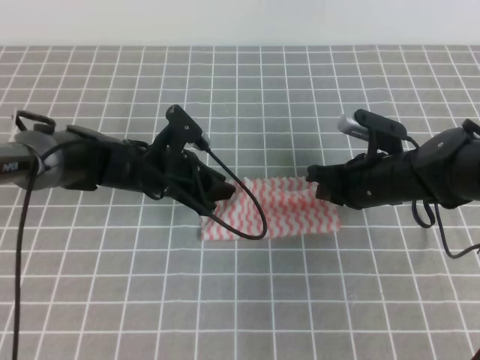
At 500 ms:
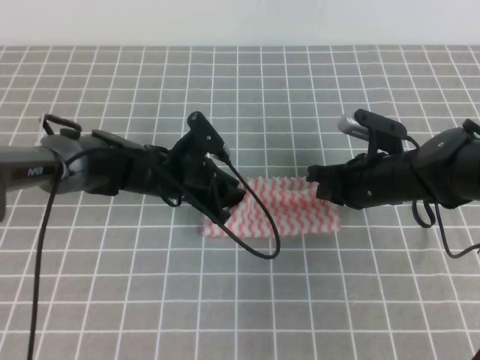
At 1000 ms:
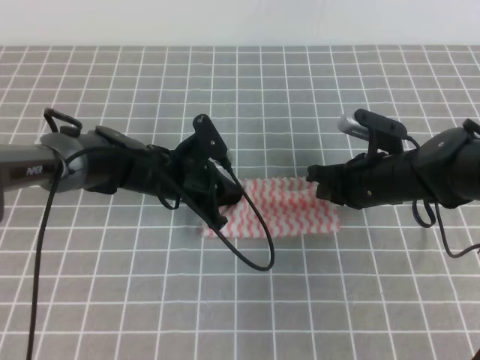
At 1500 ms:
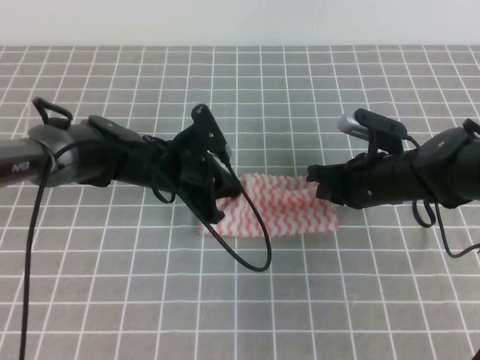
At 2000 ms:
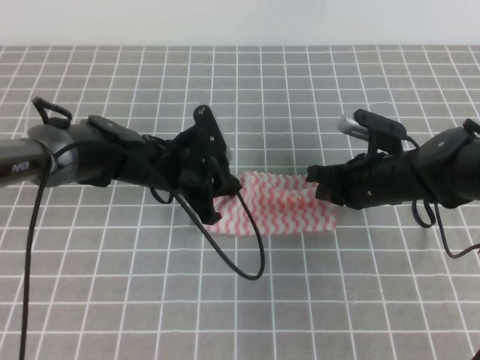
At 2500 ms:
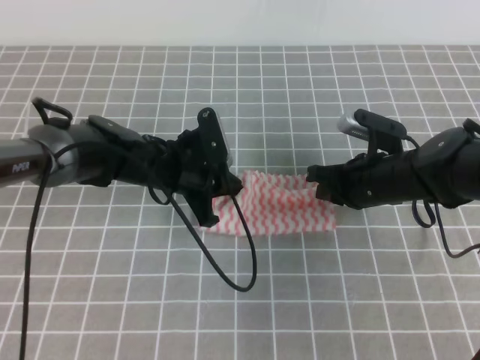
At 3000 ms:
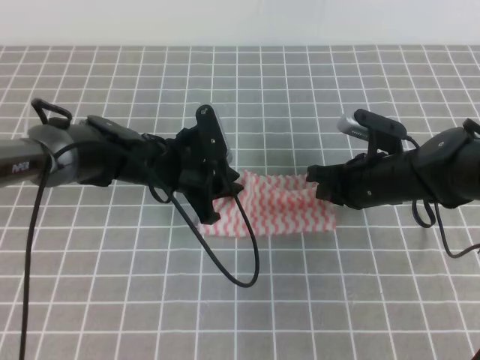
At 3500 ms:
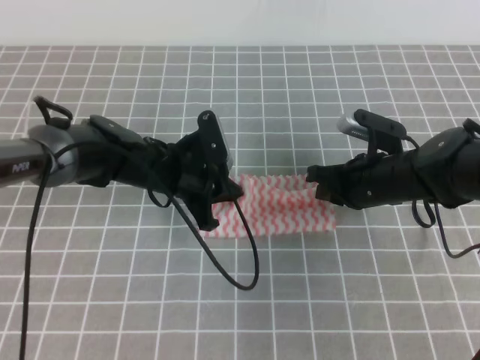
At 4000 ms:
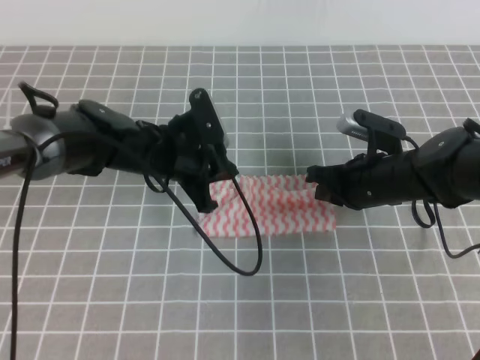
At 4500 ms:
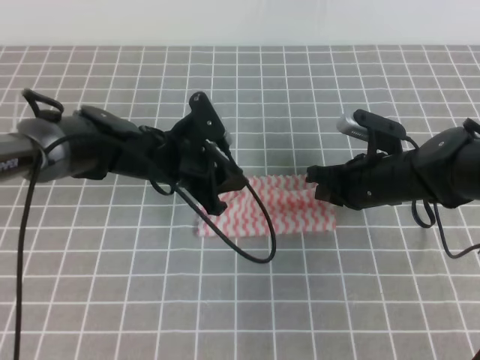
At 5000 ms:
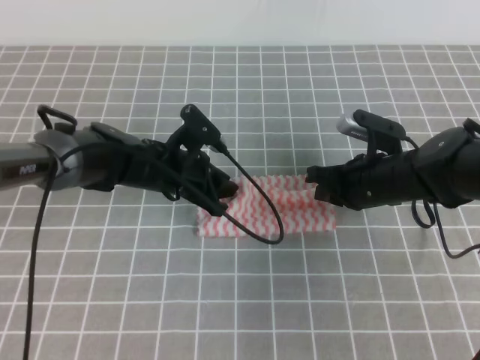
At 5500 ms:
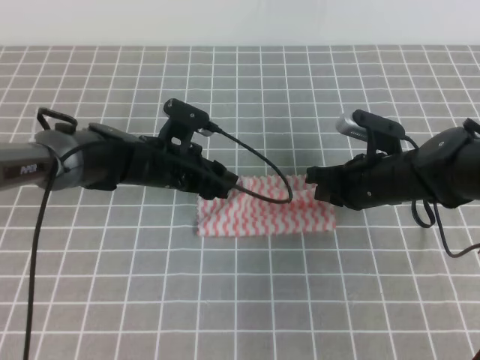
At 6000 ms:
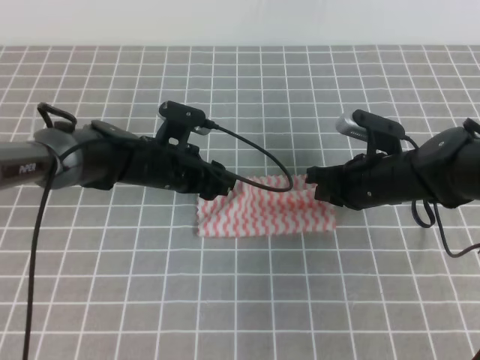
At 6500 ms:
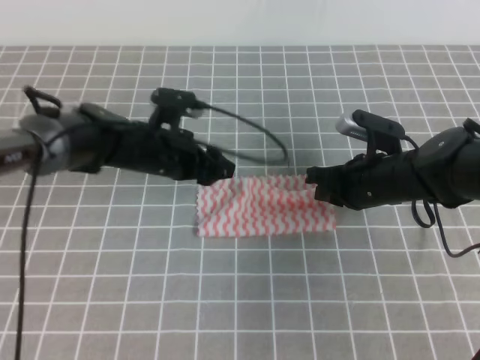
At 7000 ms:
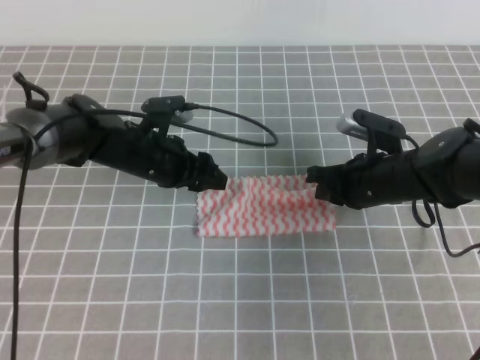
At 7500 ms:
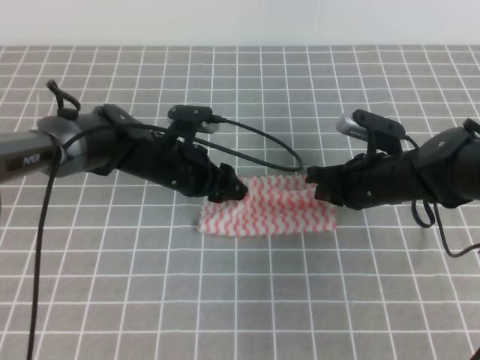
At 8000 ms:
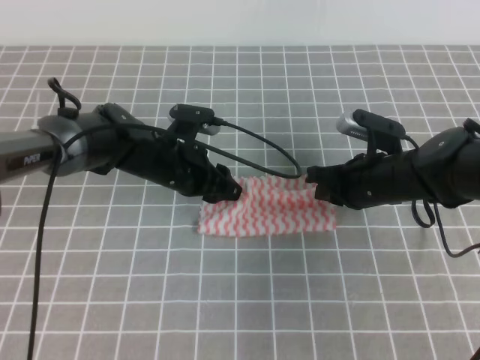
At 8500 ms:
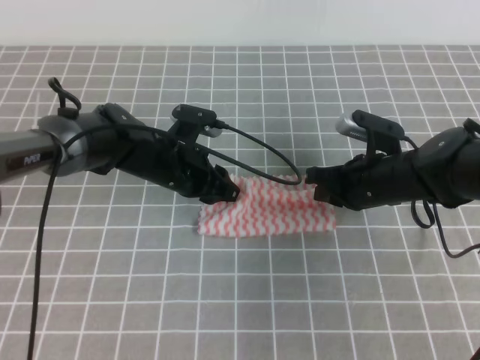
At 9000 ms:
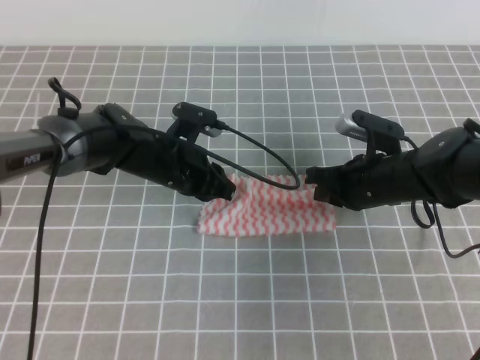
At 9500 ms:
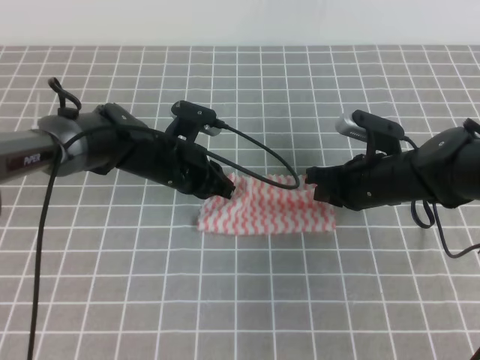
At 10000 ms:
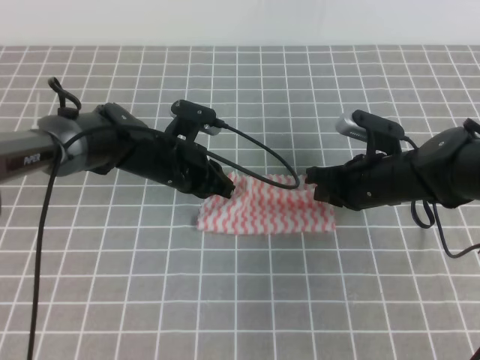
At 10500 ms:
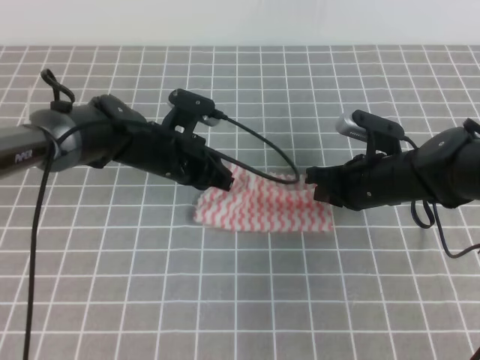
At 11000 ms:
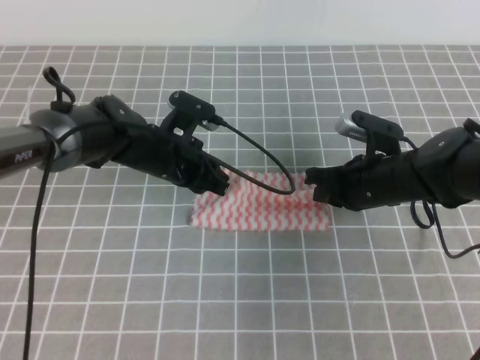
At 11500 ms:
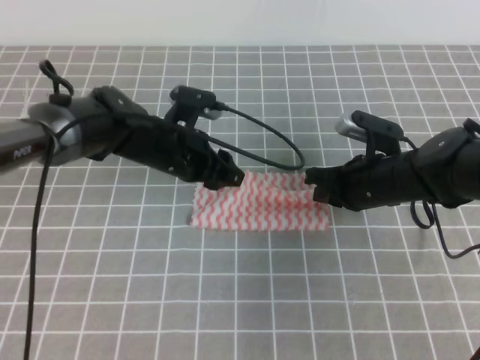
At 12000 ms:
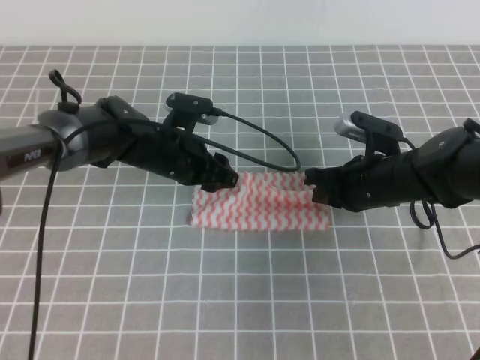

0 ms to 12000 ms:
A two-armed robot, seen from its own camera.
0 ms to 2000 ms: The left gripper closes.
2000 ms to 4000 ms: The grippers make only small movements.
4000 ms to 6000 ms: The left gripper opens.
6000 ms to 8000 ms: The grippers stay close to where they were, moving slightly.
8000 ms to 10000 ms: The left gripper closes up.
10000 ms to 12000 ms: The left gripper opens its fingers.

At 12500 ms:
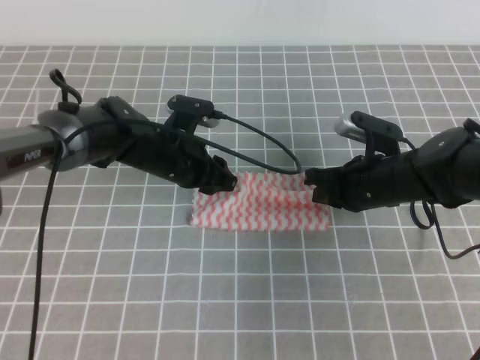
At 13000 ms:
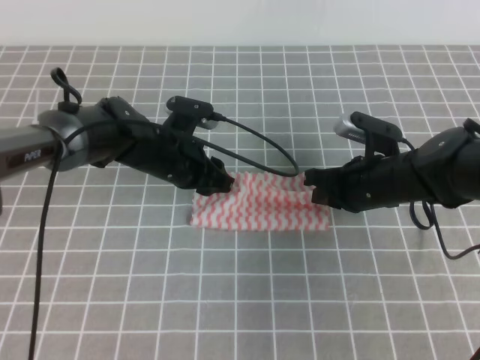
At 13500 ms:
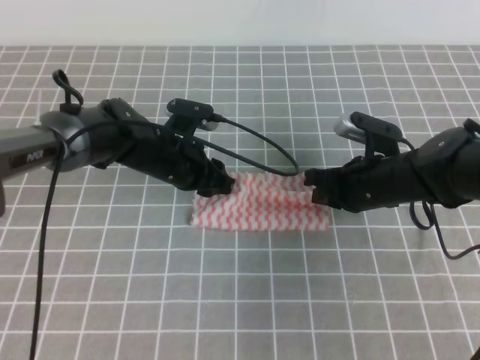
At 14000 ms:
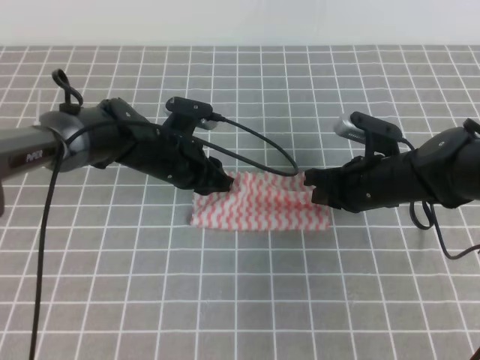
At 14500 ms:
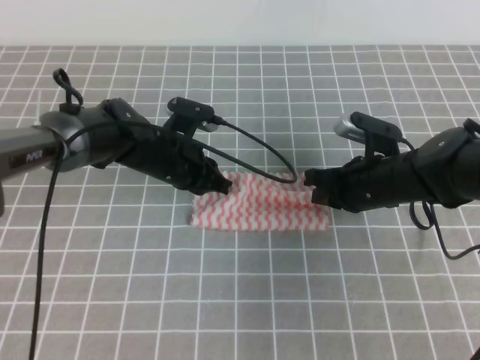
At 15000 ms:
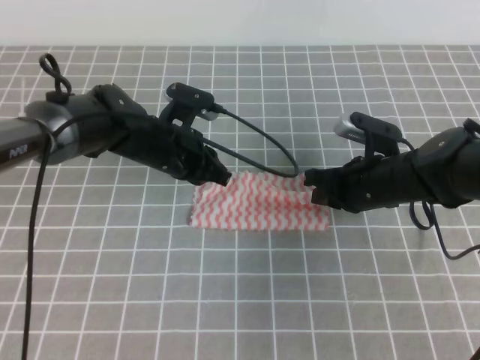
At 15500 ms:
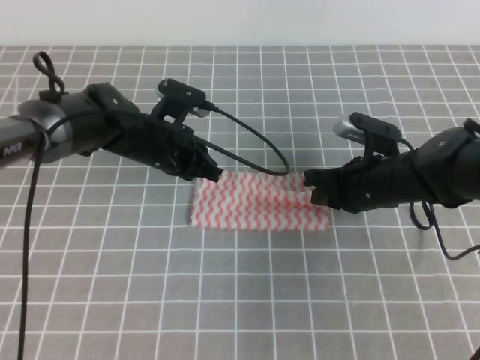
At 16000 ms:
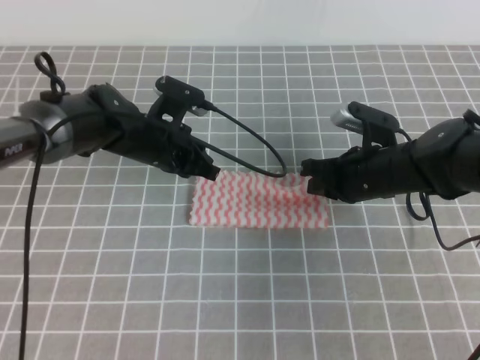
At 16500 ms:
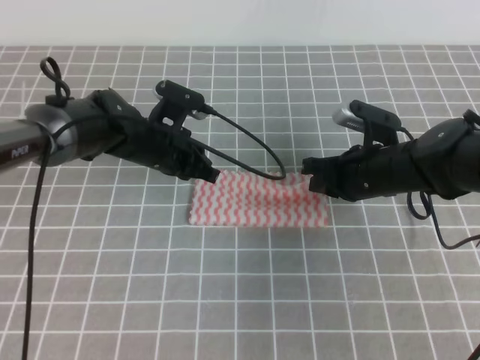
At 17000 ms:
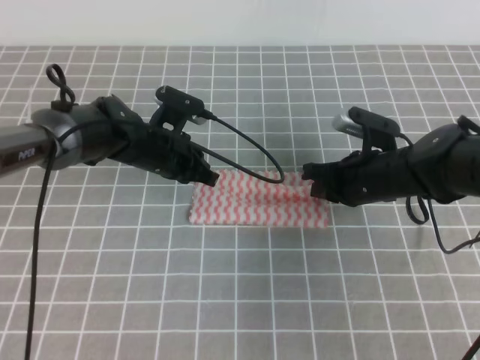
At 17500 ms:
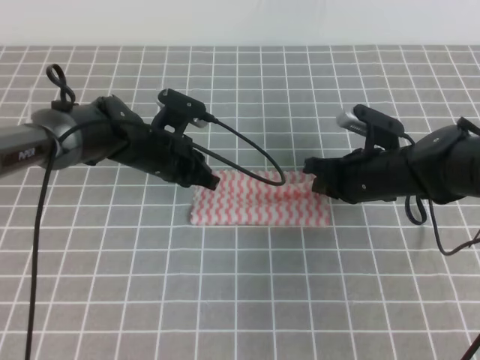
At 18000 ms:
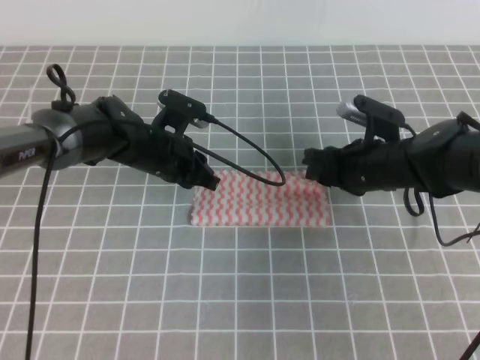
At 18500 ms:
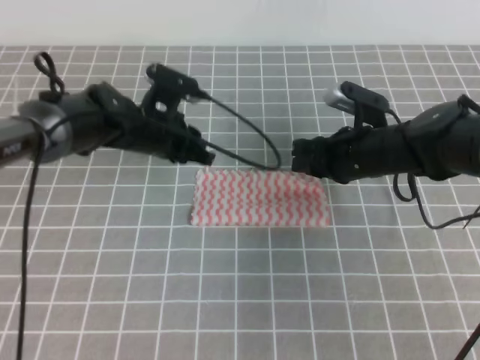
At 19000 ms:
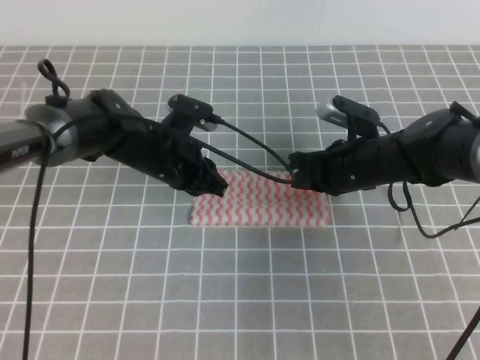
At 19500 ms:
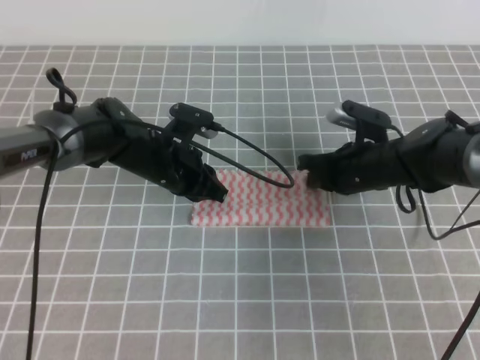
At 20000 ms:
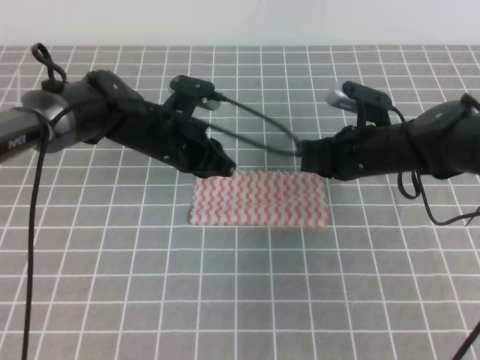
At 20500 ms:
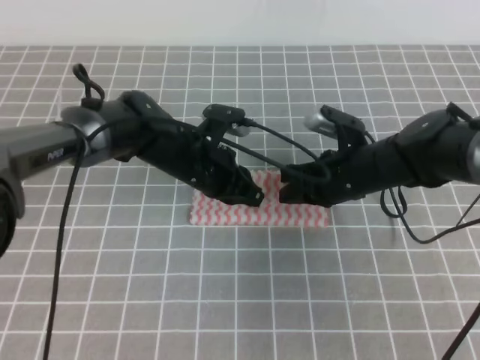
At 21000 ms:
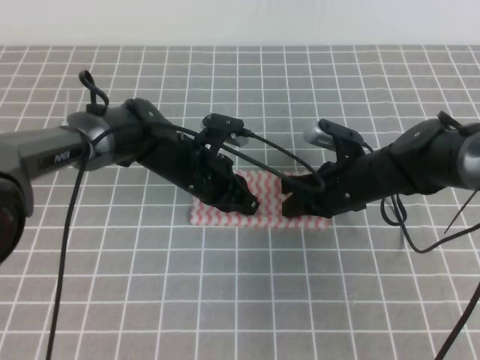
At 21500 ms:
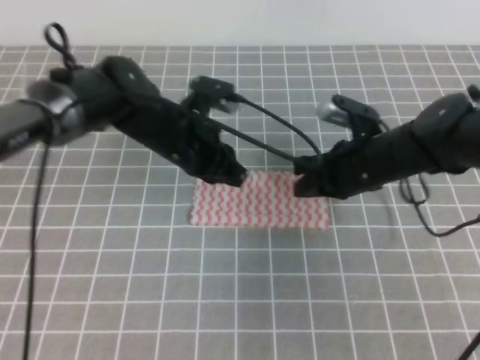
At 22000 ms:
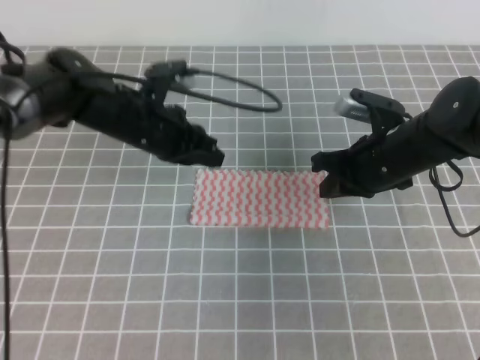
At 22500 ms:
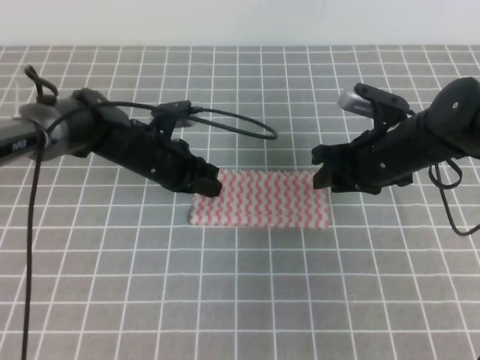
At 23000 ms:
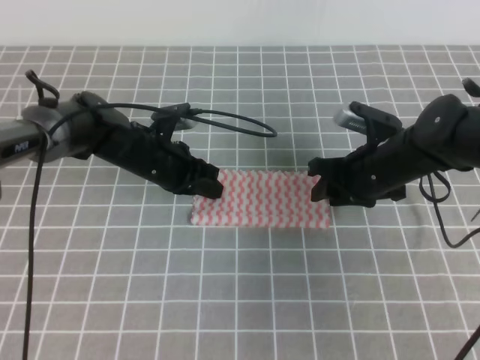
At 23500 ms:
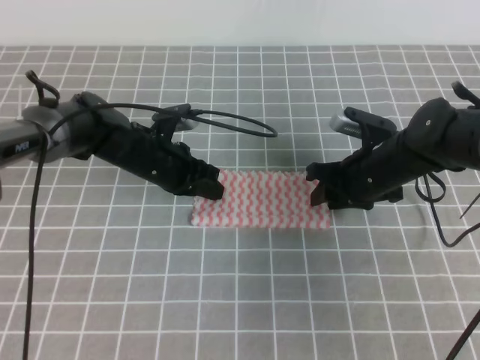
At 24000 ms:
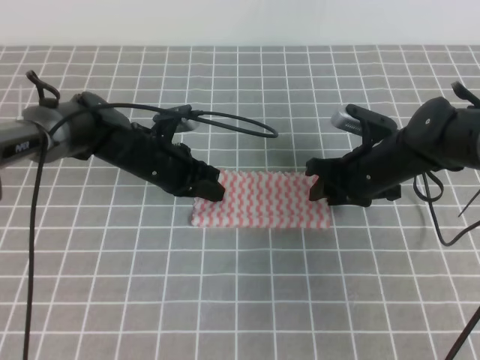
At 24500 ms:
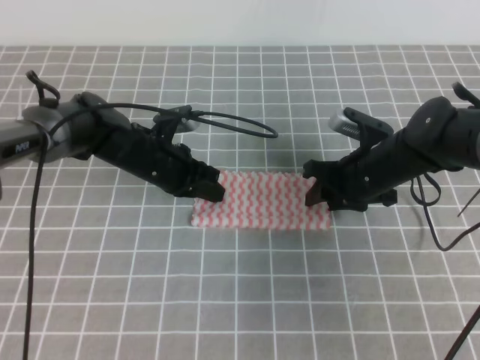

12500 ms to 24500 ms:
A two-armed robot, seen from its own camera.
12500 ms to 14500 ms: The left gripper closes.
14500 ms to 16500 ms: The grippers make only small movements.
16500 ms to 18500 ms: The right gripper opens up.
18500 ms to 20500 ms: The right gripper closes. The left gripper ends up roughly 5 cm from where it was.
20500 ms to 22500 ms: The right gripper changes place by some 5 cm, and opens its fingers. The left gripper heads to the left, covering approximately 5 cm.
22500 ms to 24500 ms: The right gripper changes place by roughly 5 cm.

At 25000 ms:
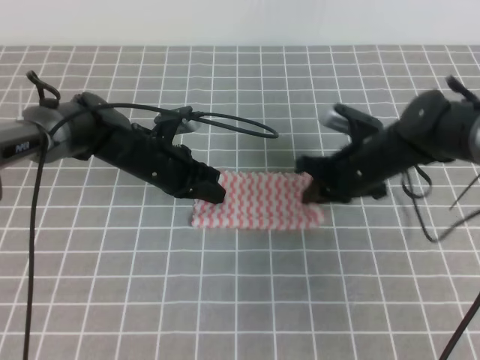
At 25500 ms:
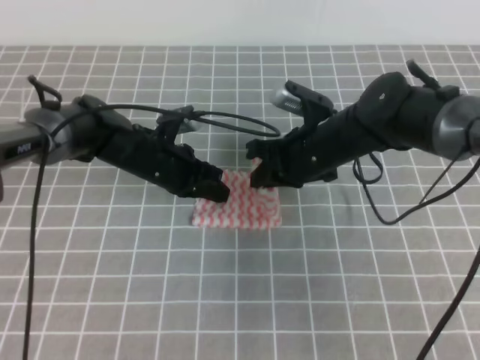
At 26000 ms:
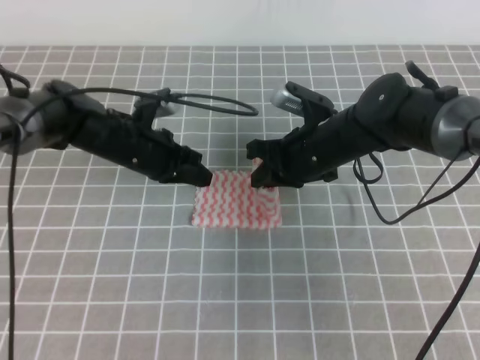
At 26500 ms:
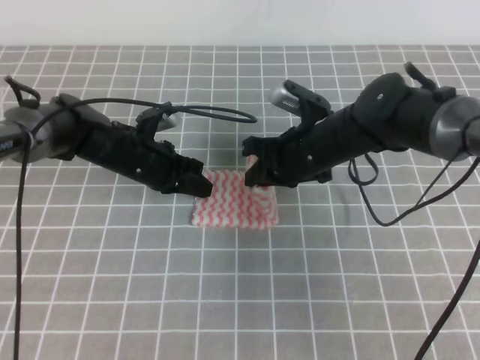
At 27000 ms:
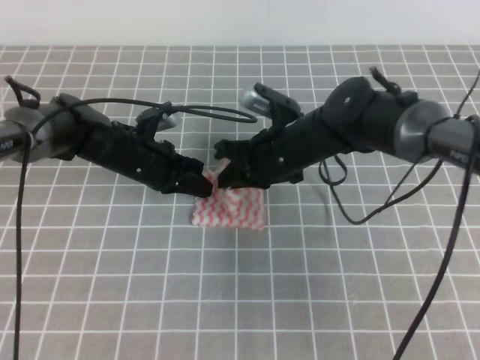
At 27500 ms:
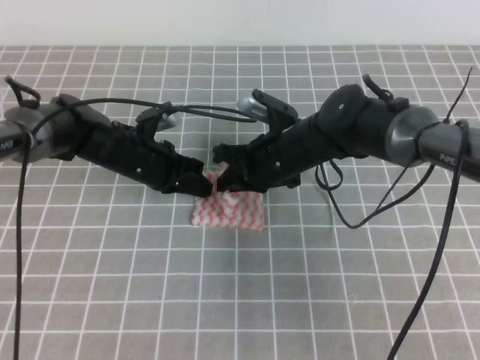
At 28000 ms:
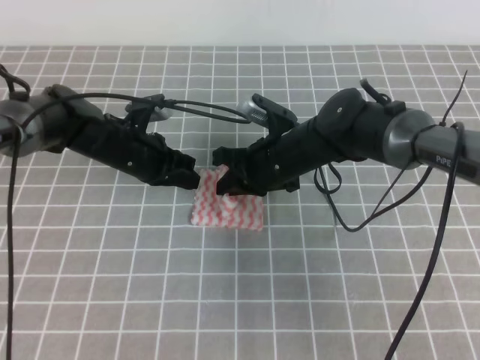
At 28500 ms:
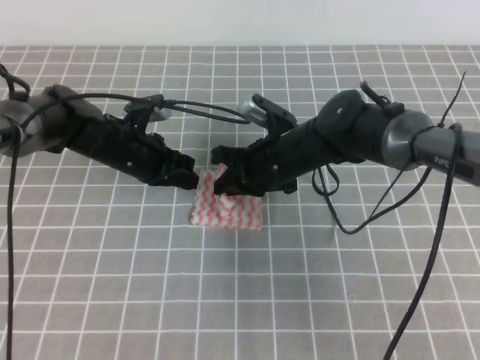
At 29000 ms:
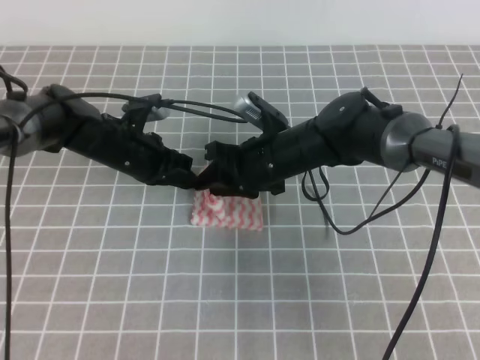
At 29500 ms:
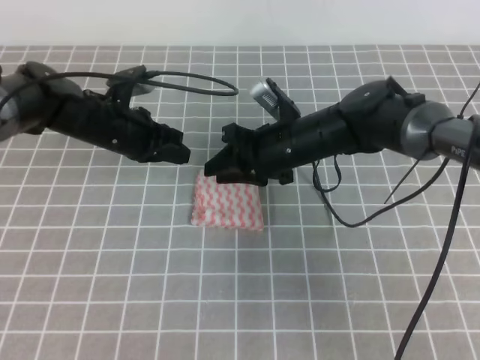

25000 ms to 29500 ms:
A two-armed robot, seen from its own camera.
25000 ms to 27000 ms: The right gripper travels to the left by some 10 cm.
27000 ms to 29500 ms: The right gripper opens up; the left gripper moves some 5 cm.
